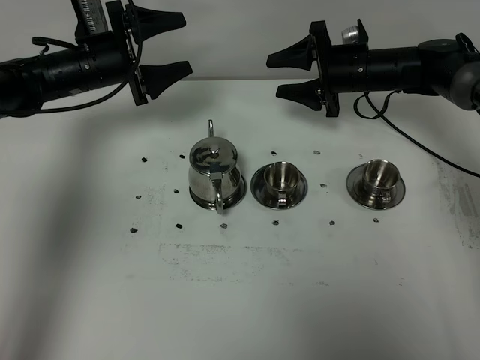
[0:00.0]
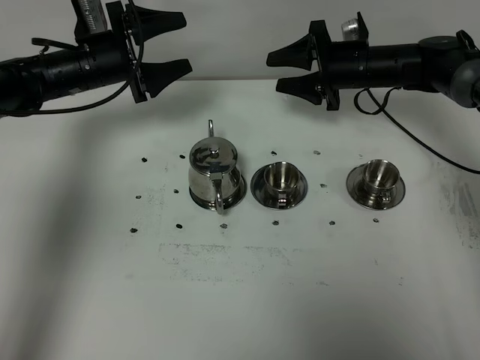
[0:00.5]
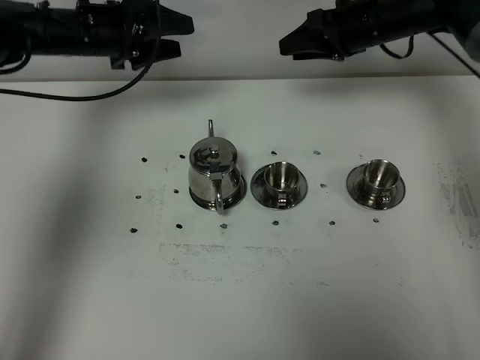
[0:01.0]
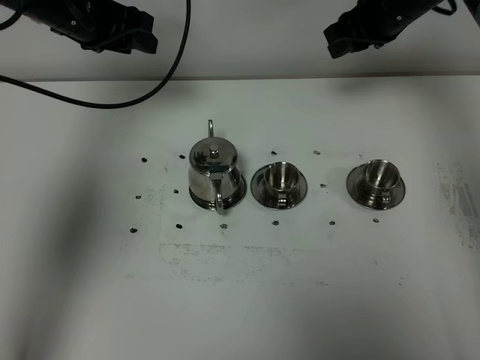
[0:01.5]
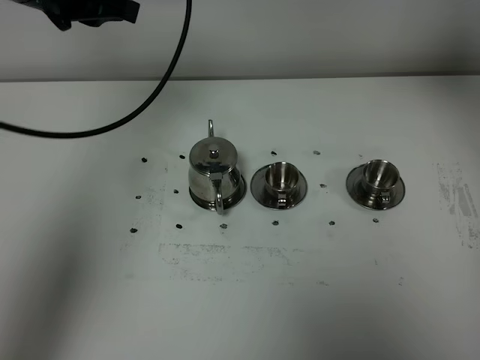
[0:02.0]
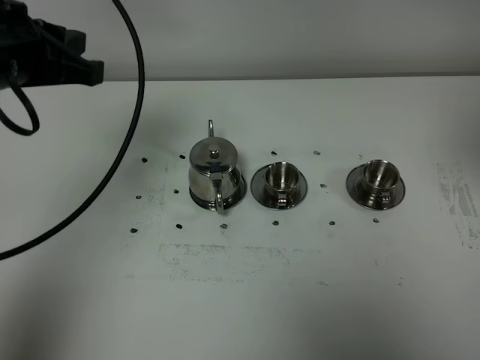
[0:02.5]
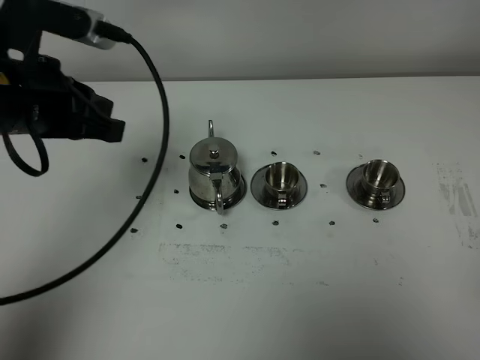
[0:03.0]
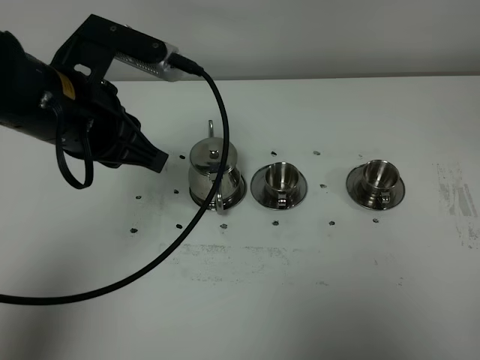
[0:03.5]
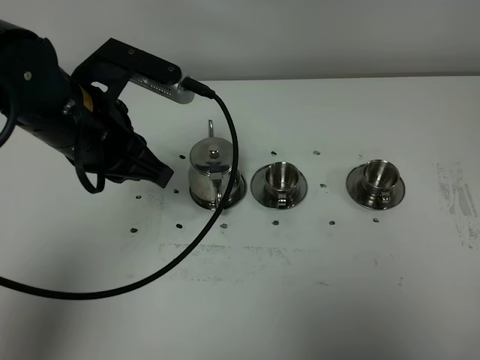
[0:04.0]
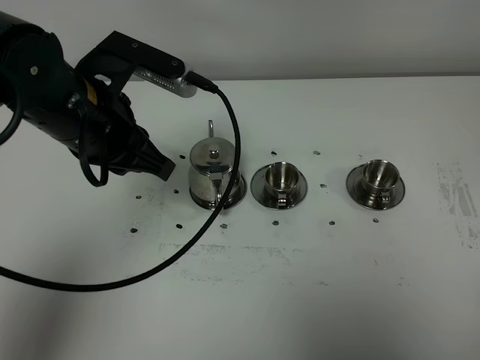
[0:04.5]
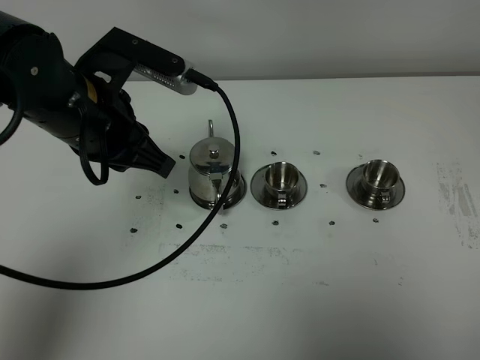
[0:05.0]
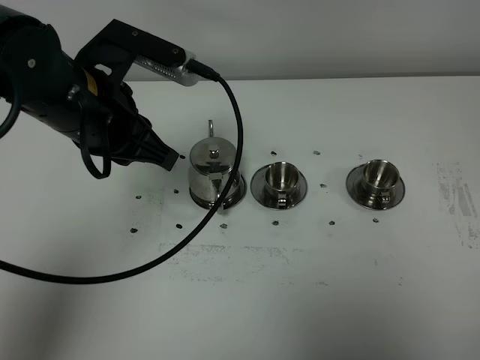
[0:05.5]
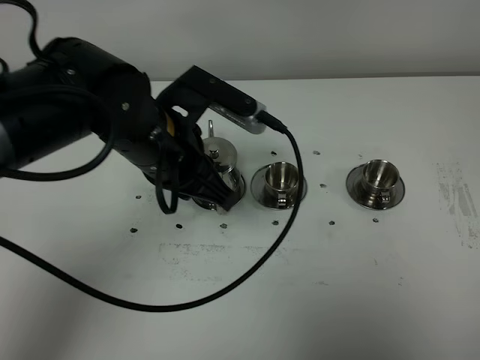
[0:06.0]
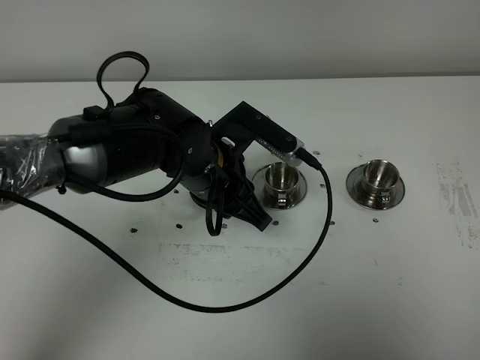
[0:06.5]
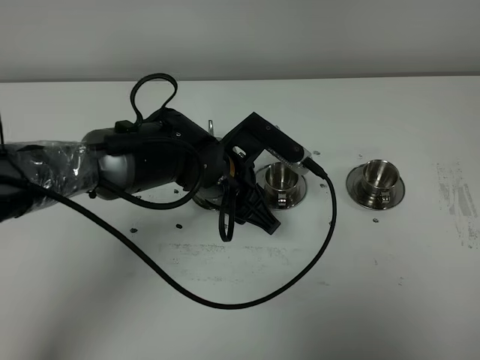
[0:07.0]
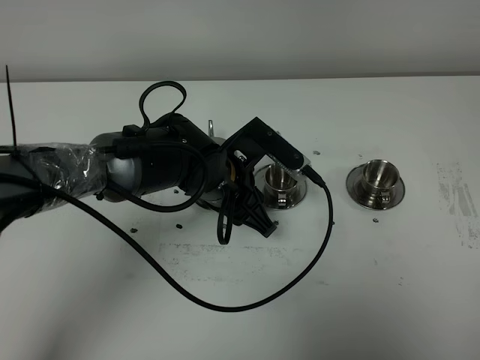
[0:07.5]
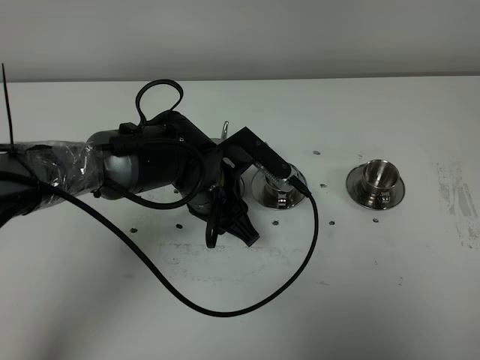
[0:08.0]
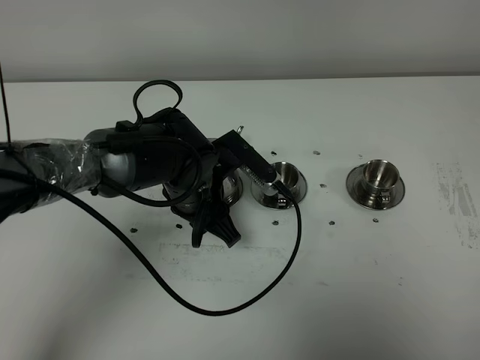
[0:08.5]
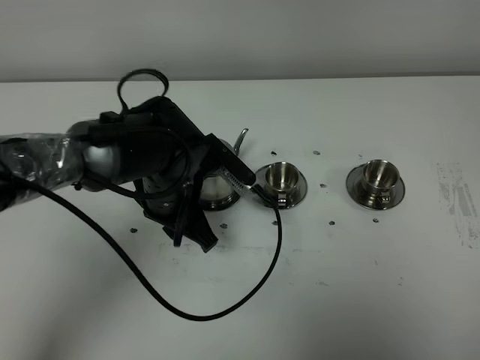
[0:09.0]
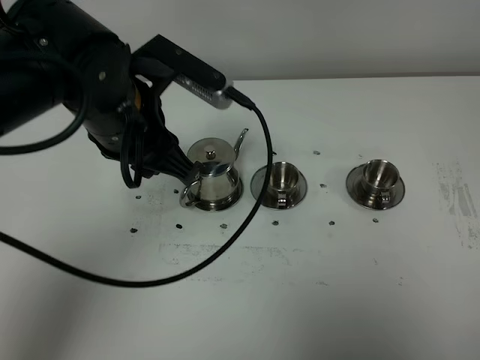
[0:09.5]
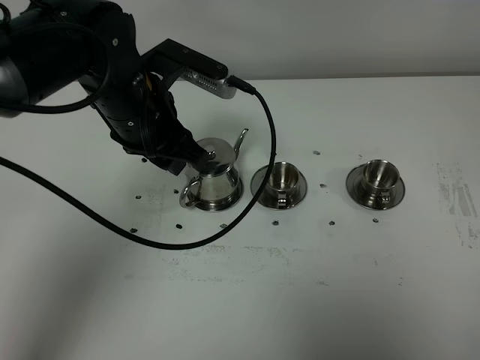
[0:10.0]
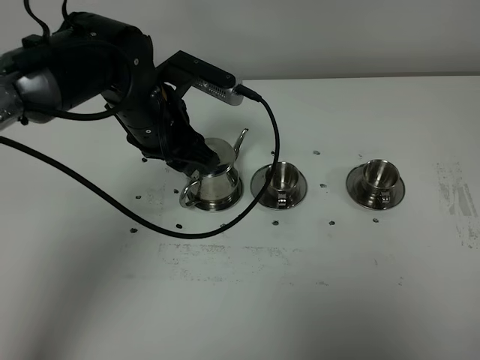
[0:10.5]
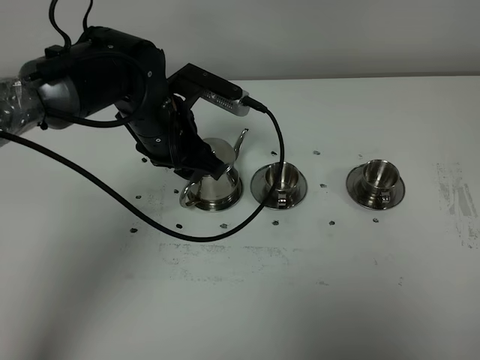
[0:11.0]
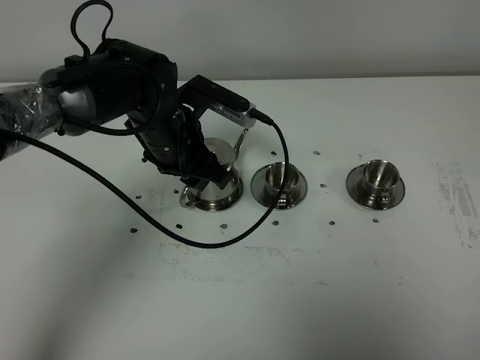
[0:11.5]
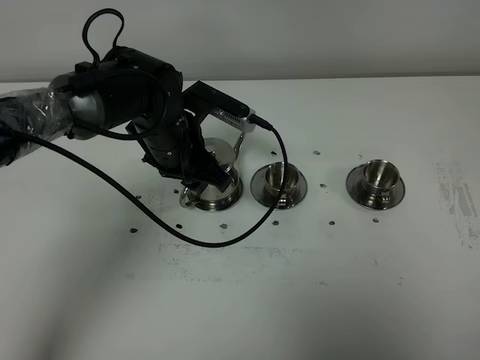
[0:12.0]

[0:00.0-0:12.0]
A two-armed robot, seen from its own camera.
Task of the whole recording: grasp the stainless steel teapot and pour the tea into the two stainless steel teacups one by one, put the stainless steel teapot back in its original place.
0:00.0 to 0:02.0: The left gripper goes some 20 cm upward and backward, and closes up, while the right gripper shifts roughly 35 cm upward and backward, and closes.
0:02.0 to 0:04.0: The right gripper is displaced backward and downward by about 40 cm. Meanwhile the left gripper moves backward, downward and to the right, approximately 15 cm.
0:04.0 to 0:06.0: The left gripper is displaced to the right by roughly 5 cm.
0:06.0 to 0:08.0: The left gripper moves downward, some 10 cm, and opens.
0:08.0 to 0:10.0: The left gripper is displaced upward and to the left by some 15 cm.
0:10.0 to 0:12.0: The left gripper heads downward, covering about 10 cm.

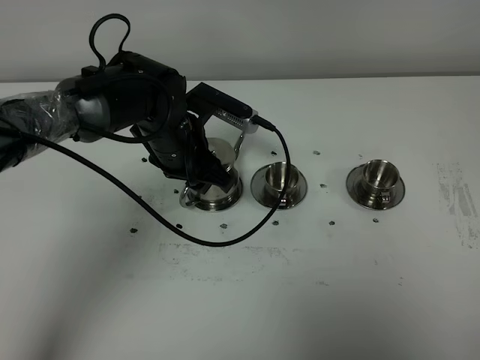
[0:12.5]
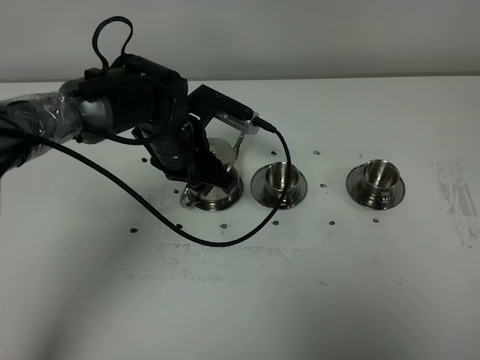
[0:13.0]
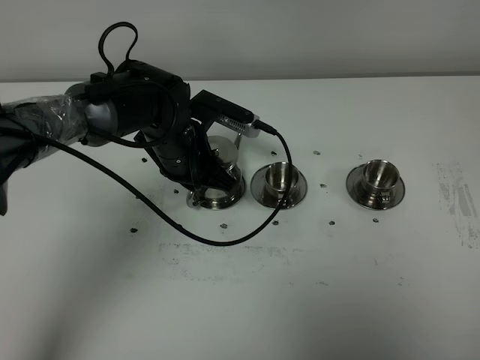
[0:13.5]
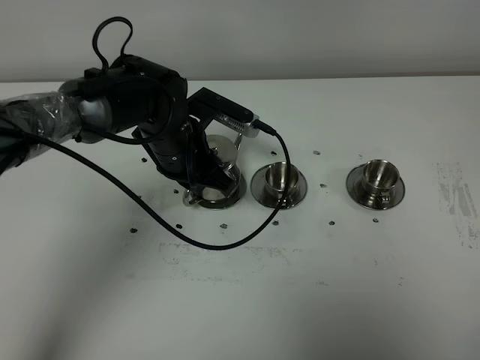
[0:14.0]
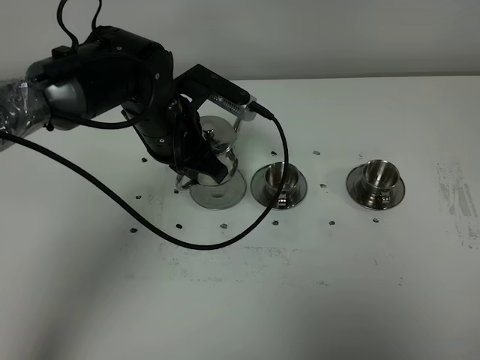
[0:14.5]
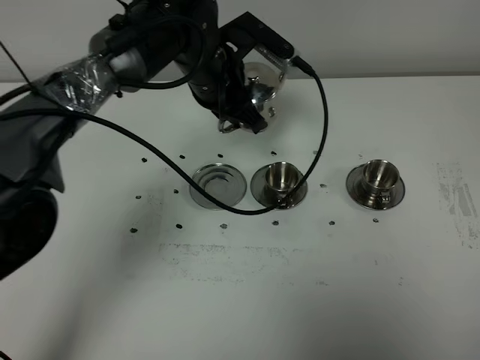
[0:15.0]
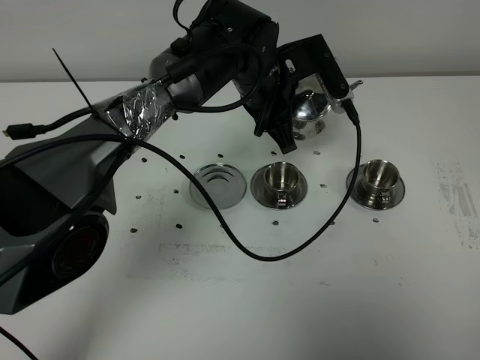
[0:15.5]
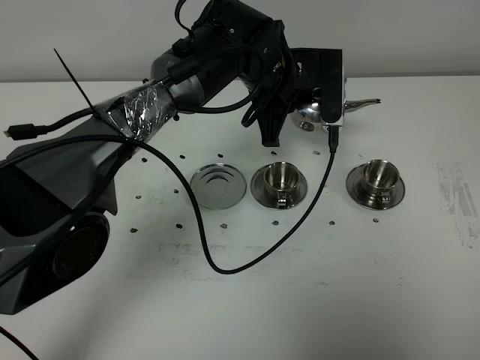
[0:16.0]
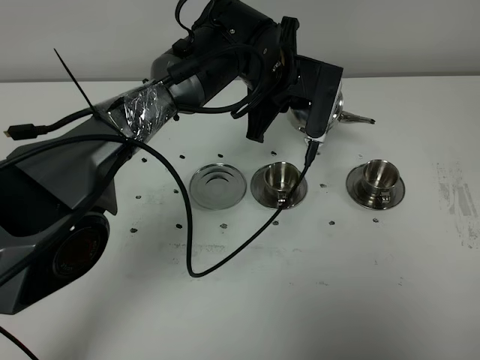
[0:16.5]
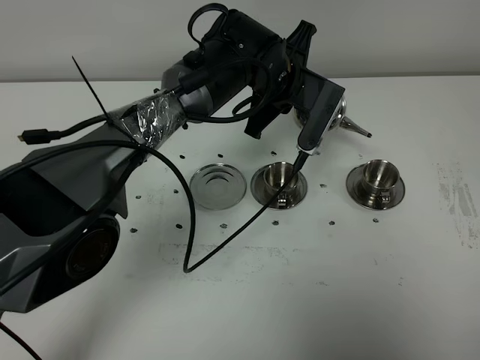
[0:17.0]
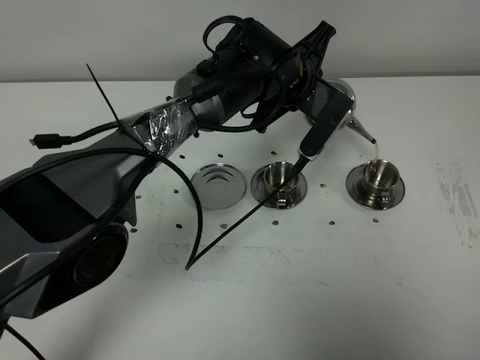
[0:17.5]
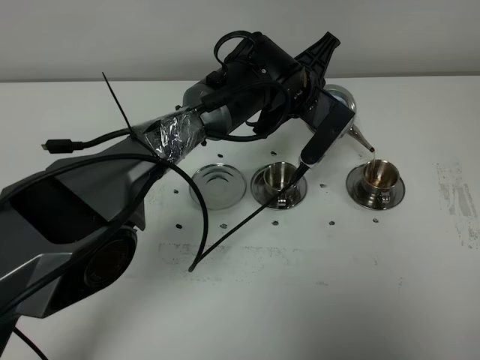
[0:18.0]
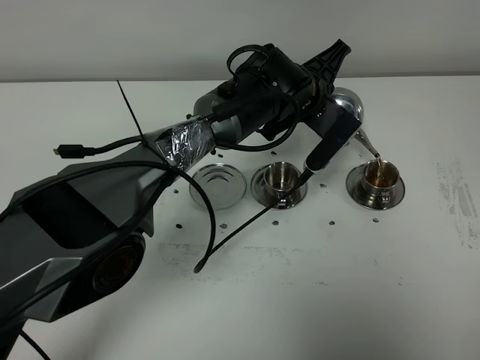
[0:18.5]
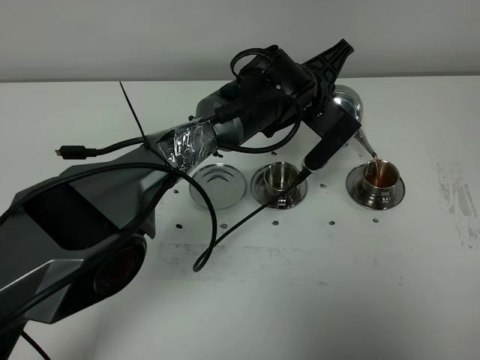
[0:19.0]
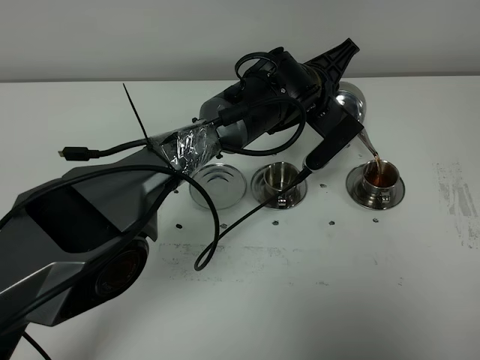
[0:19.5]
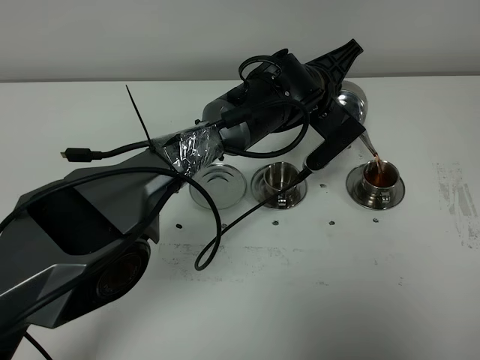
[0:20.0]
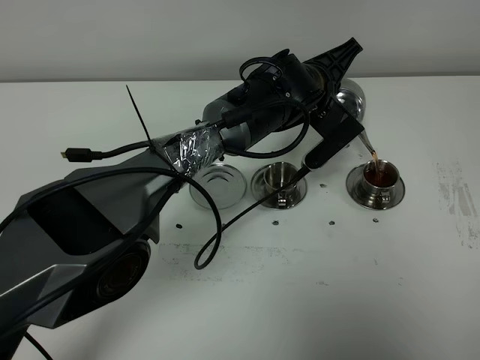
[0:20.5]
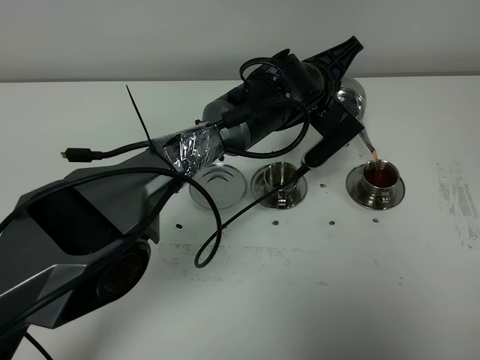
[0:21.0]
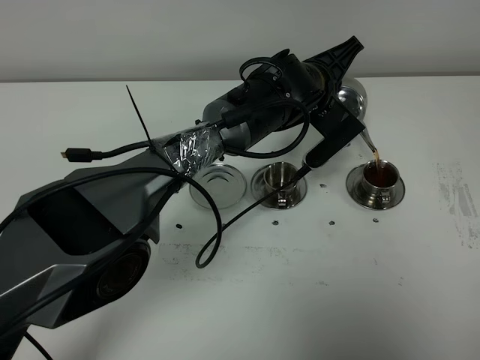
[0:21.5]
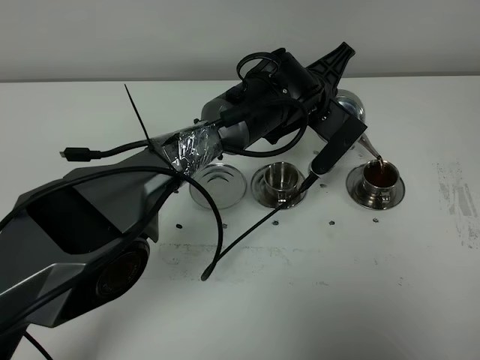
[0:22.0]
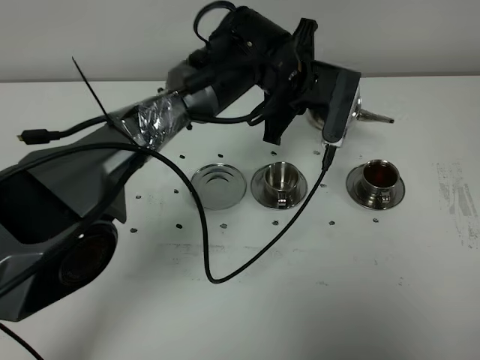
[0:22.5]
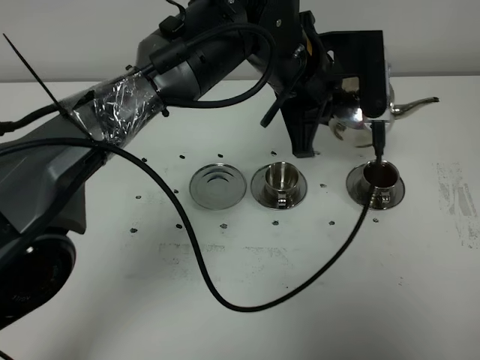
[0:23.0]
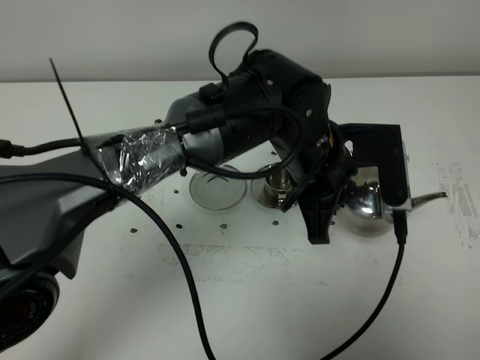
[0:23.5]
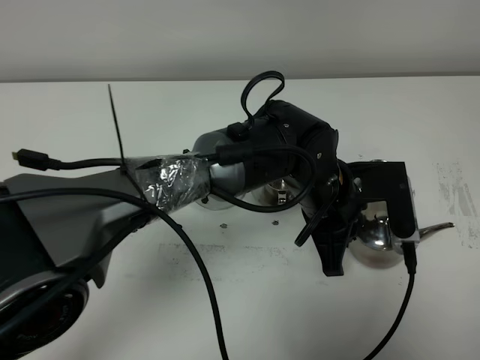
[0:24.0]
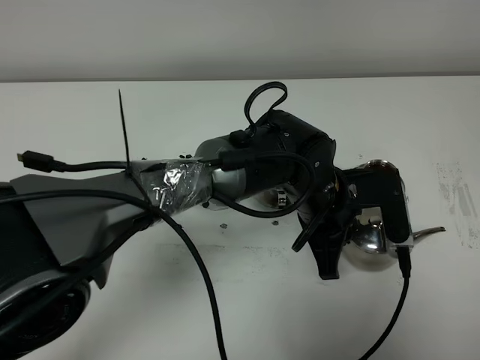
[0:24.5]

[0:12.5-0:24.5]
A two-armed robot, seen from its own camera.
Task of the whole recording: grasp the stainless steel teapot and pour the tea into the two stainless steel teacups one by one, put the stainless steel teapot back in its original place.
Step, 0:14.5 to 0:22.0: Pour tea into the teacup with the left gripper.
0:12.5 to 0:14.5: The left gripper closes up.
0:14.5 to 0:16.5: The left gripper is displaced to the right and forward by roughly 15 cm.
0:16.5 to 0:18.5: The left gripper ends up approximately 5 cm from where it was.
0:18.5 to 0:20.5: The grippers make only small movements.
0:22.5 to 0:24.5: The left gripper moves backward and downward, approximately 15 cm.

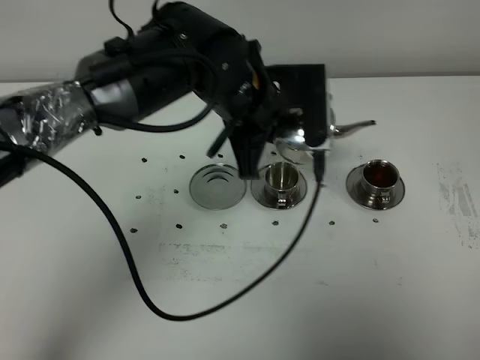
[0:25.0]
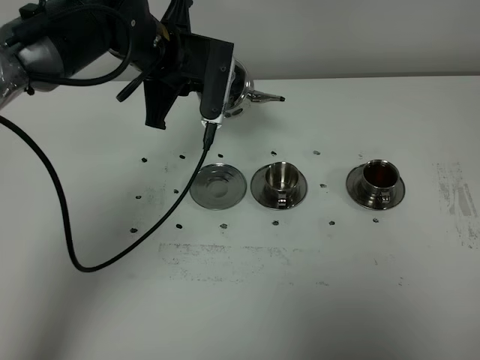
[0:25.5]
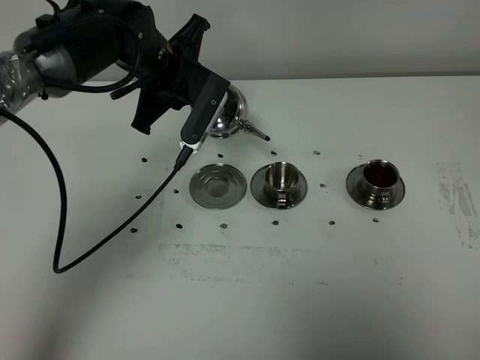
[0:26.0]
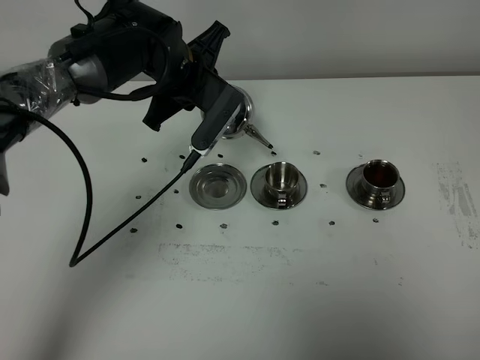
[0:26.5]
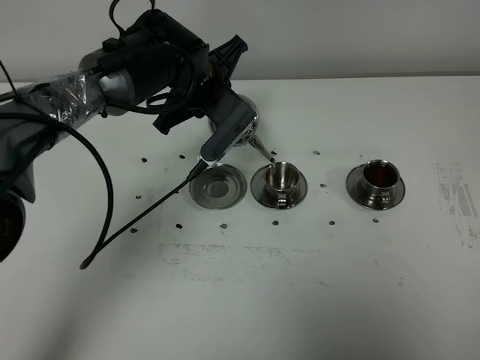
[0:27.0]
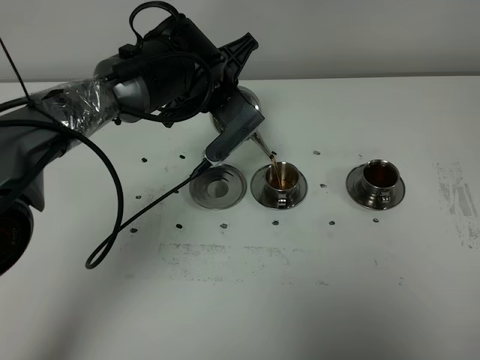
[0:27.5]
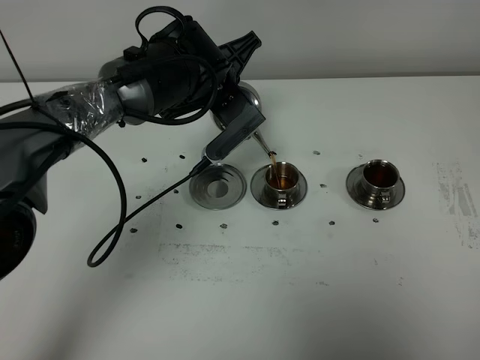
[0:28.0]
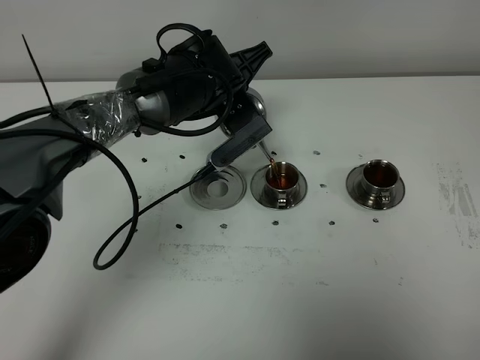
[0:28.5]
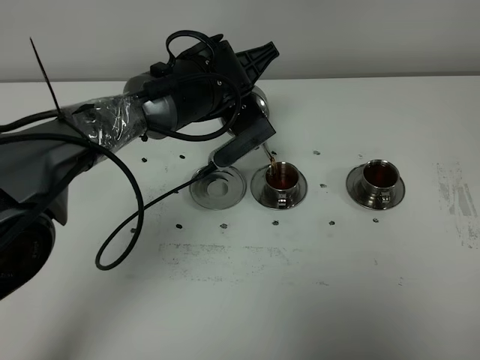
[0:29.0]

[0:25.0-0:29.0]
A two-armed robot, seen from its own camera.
Task of the whole recording: grasp the stainless steel teapot and pour the tea into the two stainless steel teacups one by one, put the stainless steel teapot back in its original place.
0:25.0 to 0:27.0: The left gripper heads forward, covering about 5 cm.
0:27.0 to 0:29.0: The grippers make only small movements.
